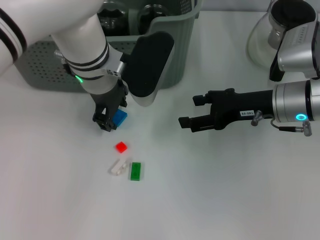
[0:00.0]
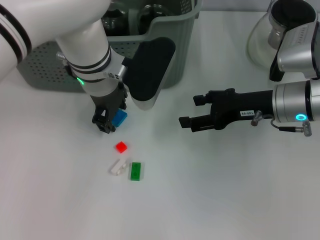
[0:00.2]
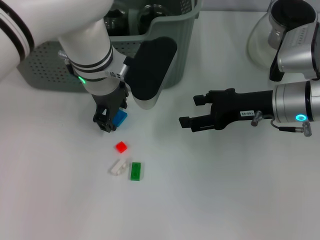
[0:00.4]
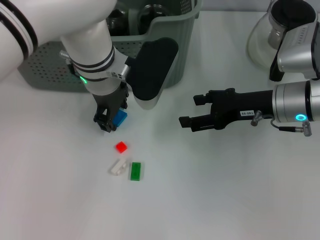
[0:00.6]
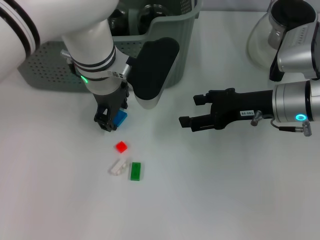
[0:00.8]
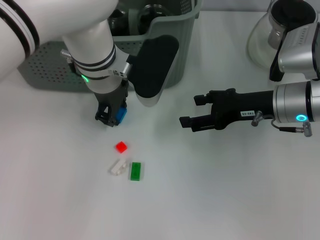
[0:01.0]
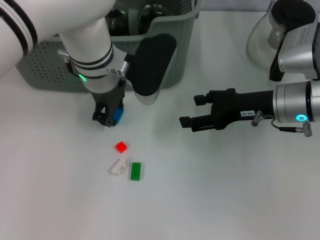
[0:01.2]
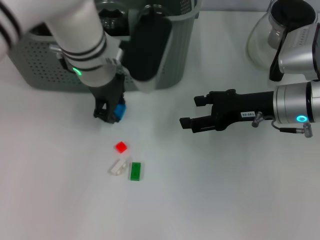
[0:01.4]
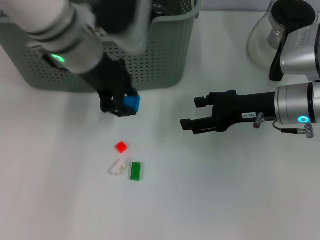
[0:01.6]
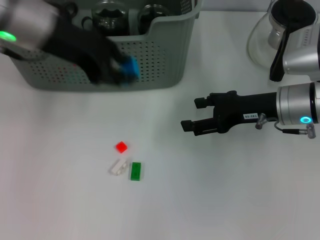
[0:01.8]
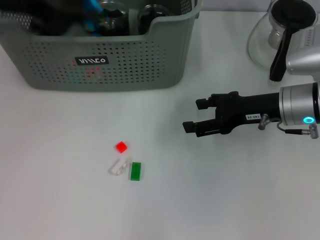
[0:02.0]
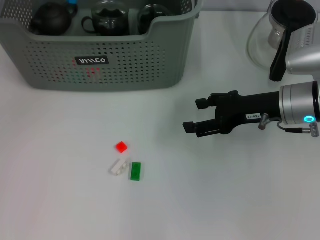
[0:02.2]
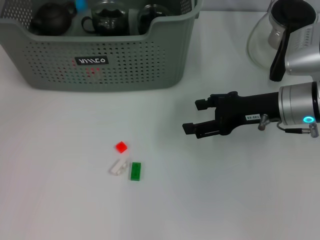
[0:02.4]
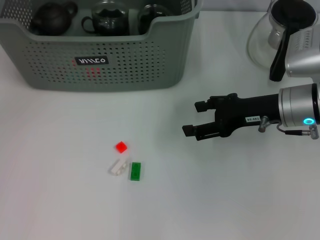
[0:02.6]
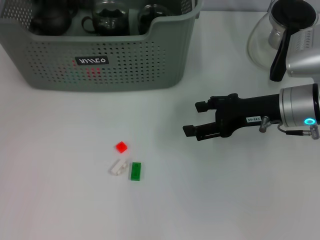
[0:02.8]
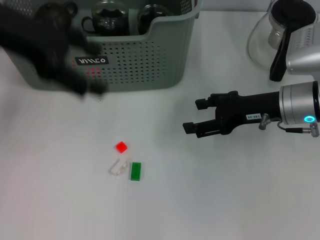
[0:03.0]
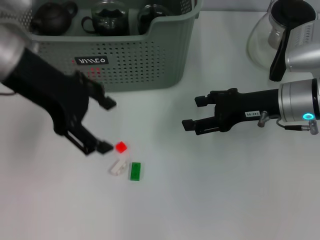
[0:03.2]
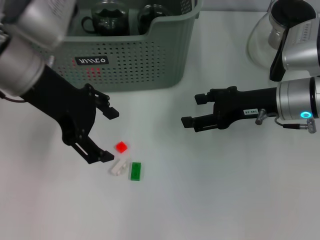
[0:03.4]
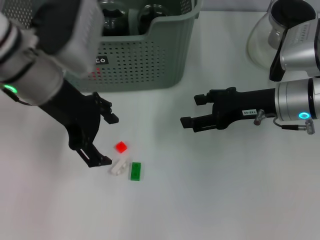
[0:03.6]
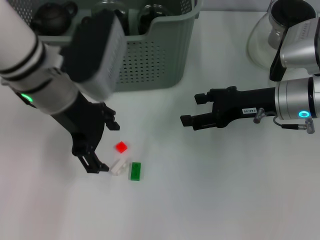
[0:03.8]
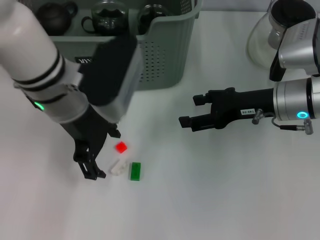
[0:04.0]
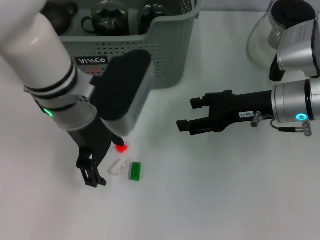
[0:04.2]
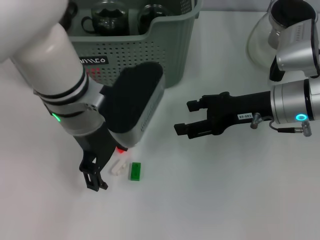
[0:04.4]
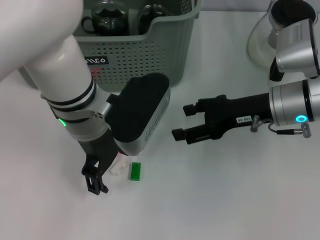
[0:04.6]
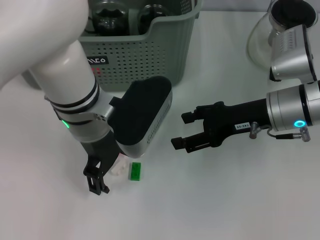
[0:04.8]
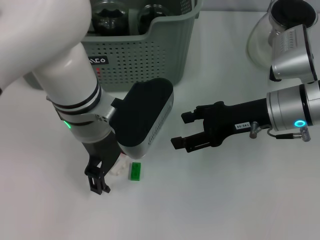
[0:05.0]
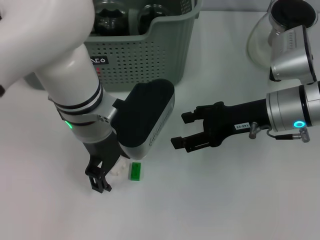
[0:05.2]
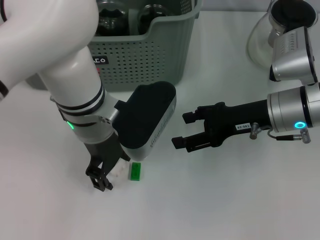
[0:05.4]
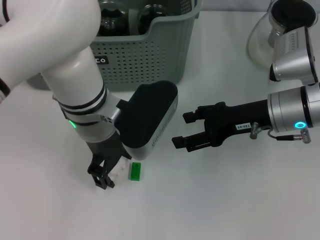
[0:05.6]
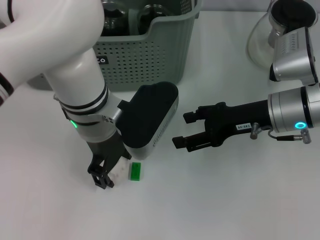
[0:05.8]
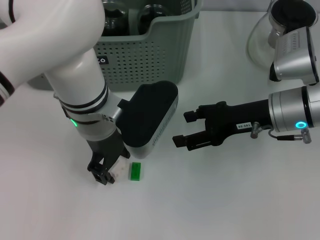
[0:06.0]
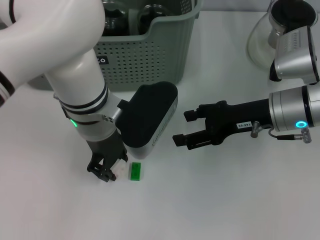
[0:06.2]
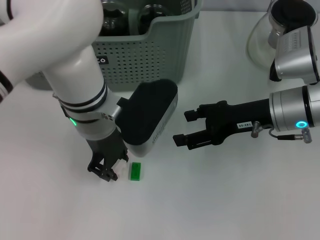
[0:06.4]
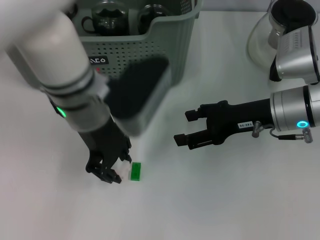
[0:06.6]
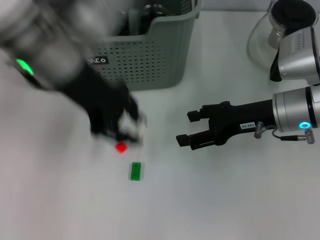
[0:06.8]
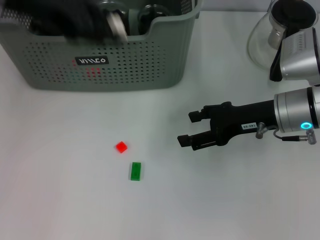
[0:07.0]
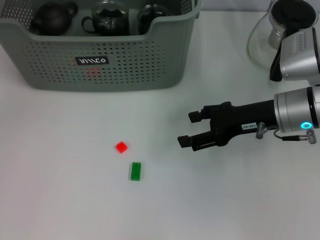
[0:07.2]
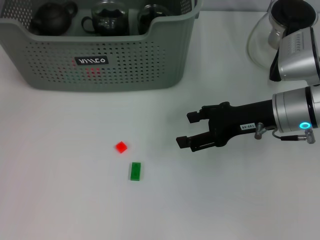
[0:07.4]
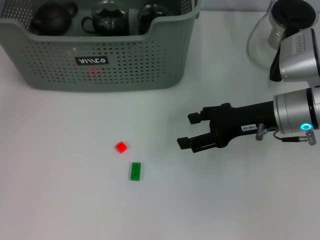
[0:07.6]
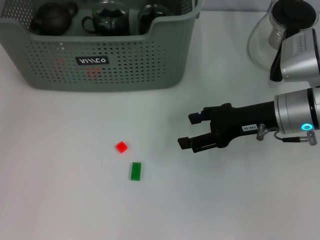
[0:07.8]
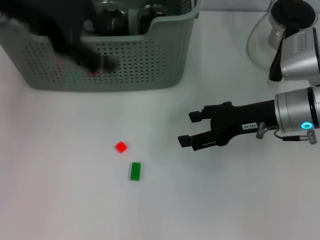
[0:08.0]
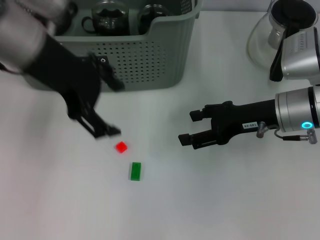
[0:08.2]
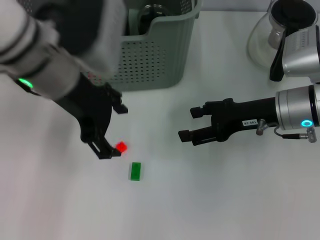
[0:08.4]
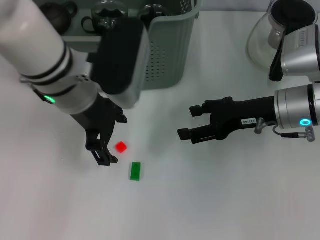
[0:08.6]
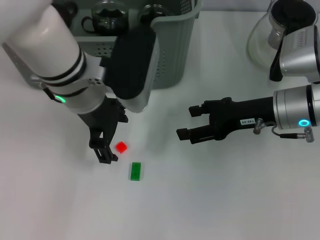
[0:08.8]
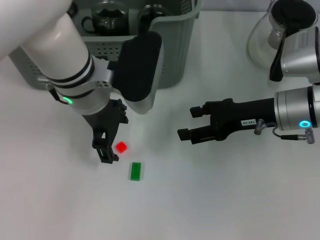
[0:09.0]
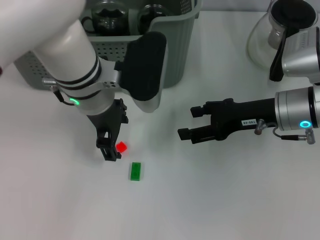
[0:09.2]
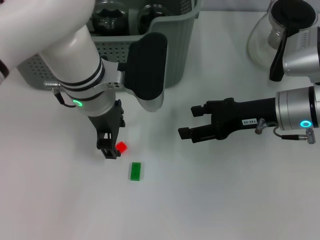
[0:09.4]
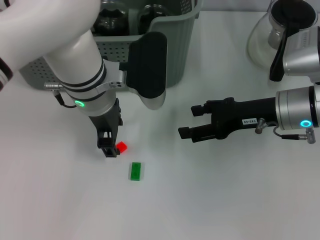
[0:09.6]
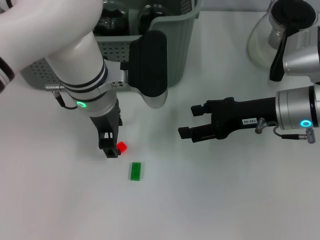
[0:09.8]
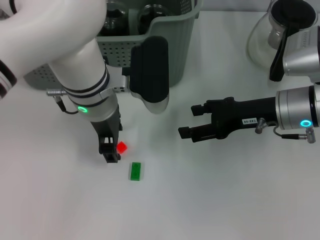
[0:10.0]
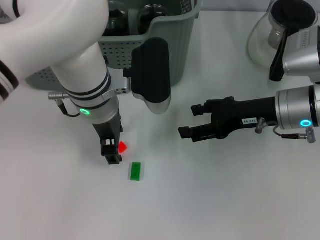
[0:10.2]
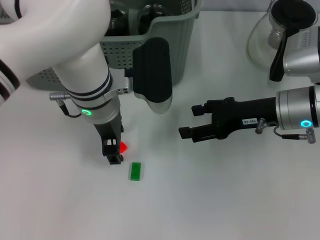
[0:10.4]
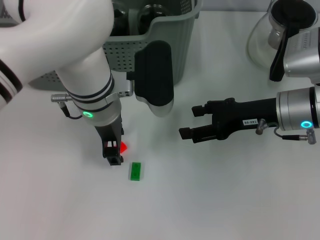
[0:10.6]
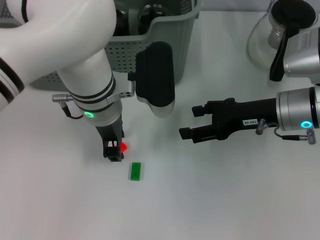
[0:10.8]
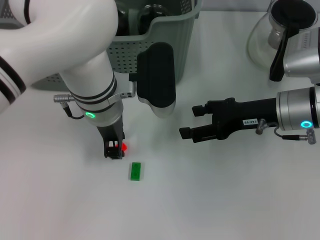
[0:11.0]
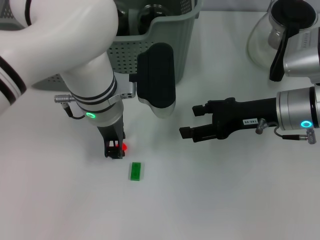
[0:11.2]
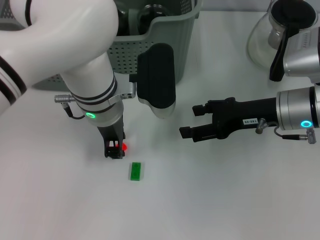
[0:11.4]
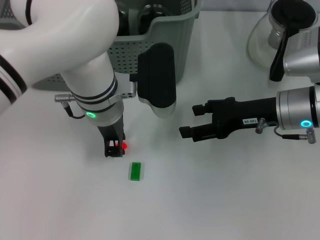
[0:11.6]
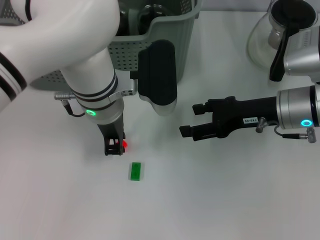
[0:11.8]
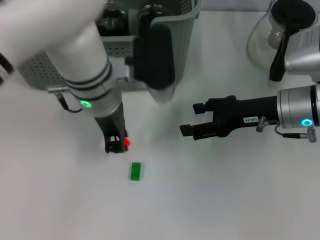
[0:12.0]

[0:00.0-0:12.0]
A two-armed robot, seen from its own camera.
Task of the whole recording: pick up the teacup on the table and place it into the storage bin, pick up the block on the table and place it into the storage bin.
Step, 0:01.4 to 0:02.6: Place the dark blue block in the storage box with left gripper.
Step, 0:02.8 to 0:06.2: Grasp the white block with left gripper.
Step, 0:06.6 to 0:07.6: Place the white block in the storage box with left gripper.
Step, 0:07.8 to 0:11.6: Grasp the orange block with left gripper.
0:00.0 to 0:01.6: The left gripper is displaced upward by about 5 cm.
0:01.6 to 0:03.0: The left gripper goes some 15 cm to the left and upward, and opens its fingers.
0:03.0 to 0:04.4: The left gripper goes about 15 cm to the right and downward.
0:06.0 to 0:07.6: The left gripper goes about 25 cm to the left, upward and forward.
0:07.6 to 0:09.0: The left gripper heads to the right, downward and backward, covering about 25 cm, and opens up.
0:09.0 to 0:10.4: The grippers stay close to where they were, moving slightly.
0:10.4 to 0:12.0: The left gripper closes.

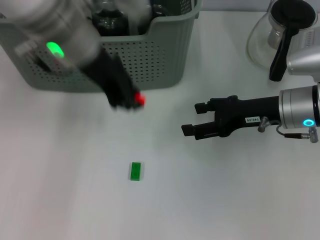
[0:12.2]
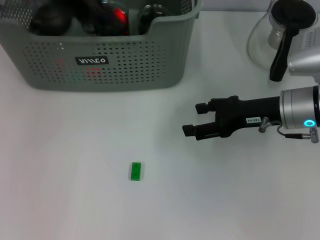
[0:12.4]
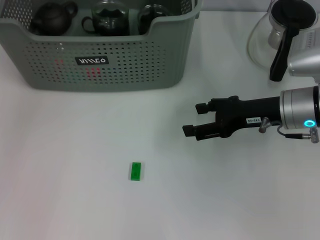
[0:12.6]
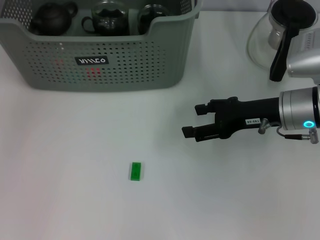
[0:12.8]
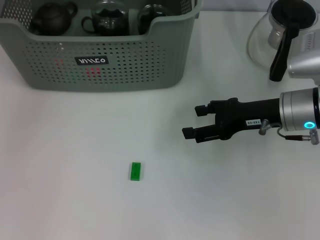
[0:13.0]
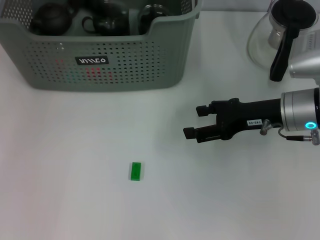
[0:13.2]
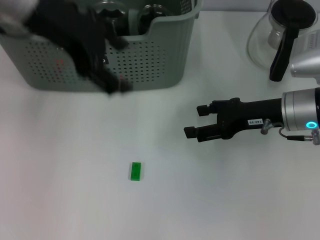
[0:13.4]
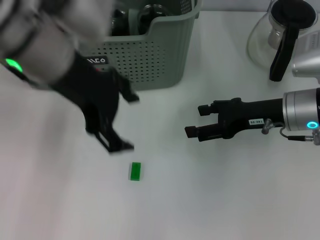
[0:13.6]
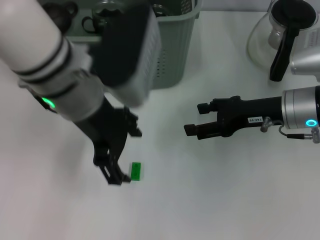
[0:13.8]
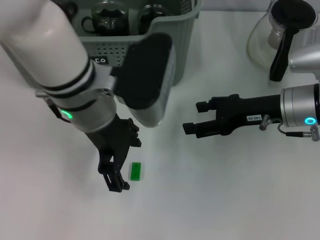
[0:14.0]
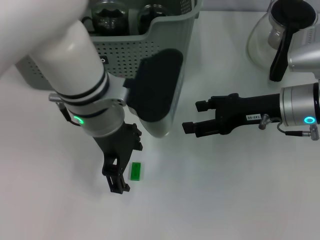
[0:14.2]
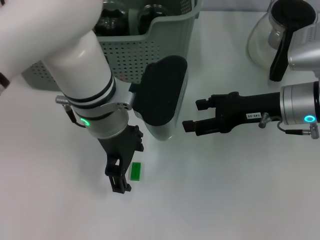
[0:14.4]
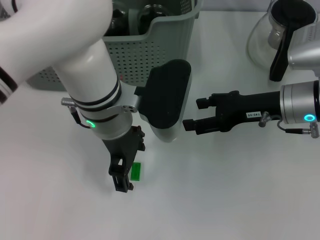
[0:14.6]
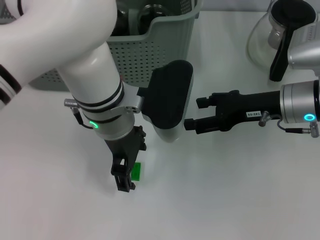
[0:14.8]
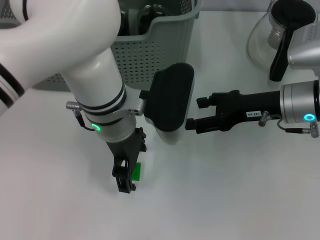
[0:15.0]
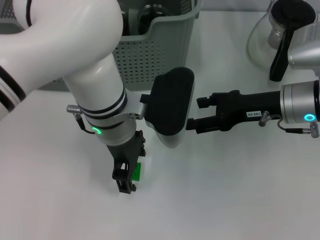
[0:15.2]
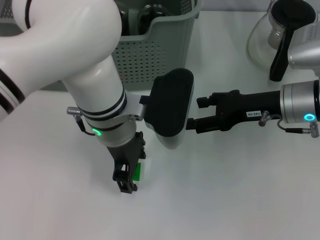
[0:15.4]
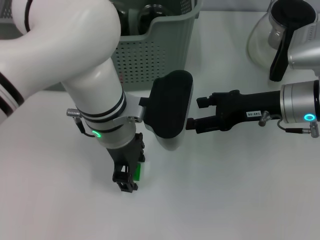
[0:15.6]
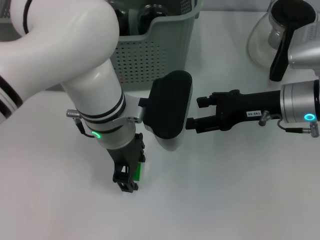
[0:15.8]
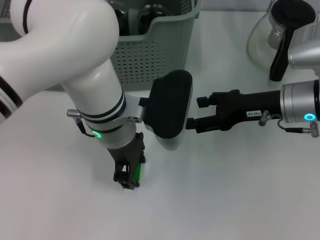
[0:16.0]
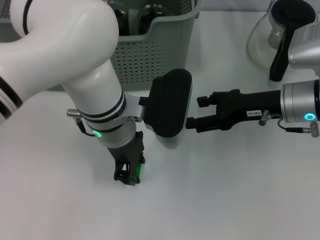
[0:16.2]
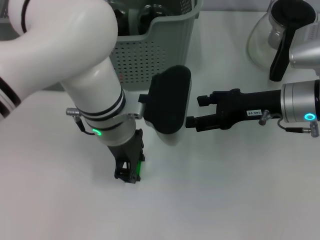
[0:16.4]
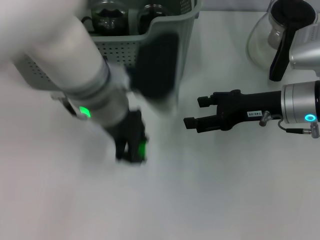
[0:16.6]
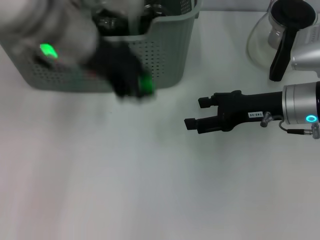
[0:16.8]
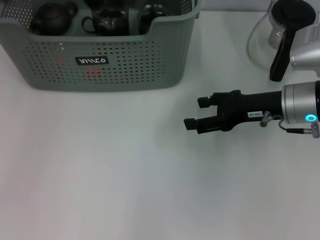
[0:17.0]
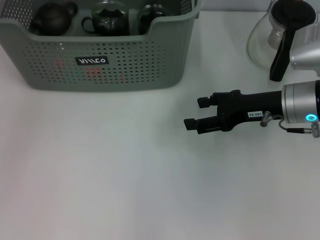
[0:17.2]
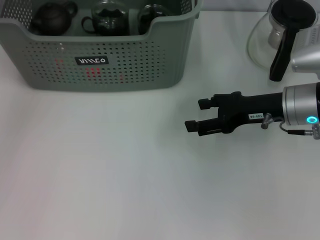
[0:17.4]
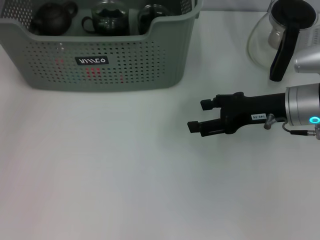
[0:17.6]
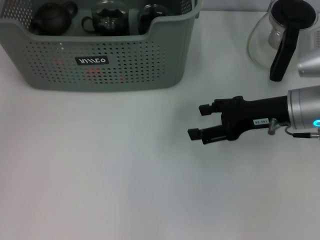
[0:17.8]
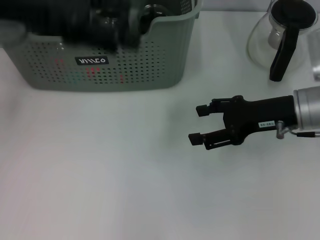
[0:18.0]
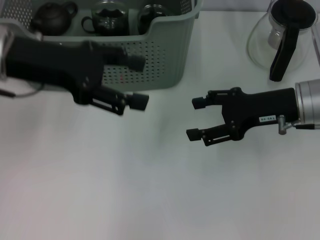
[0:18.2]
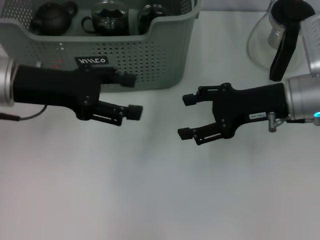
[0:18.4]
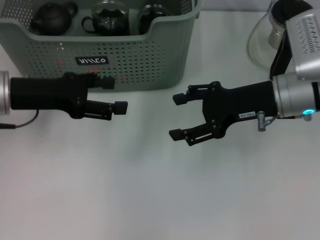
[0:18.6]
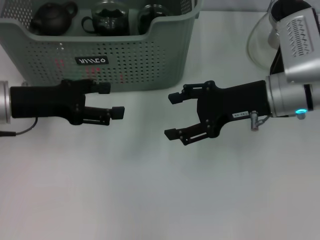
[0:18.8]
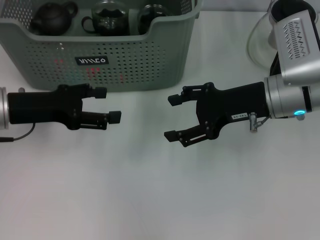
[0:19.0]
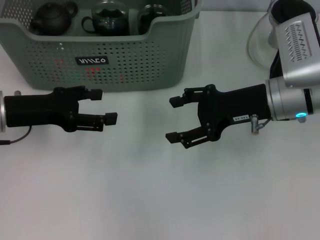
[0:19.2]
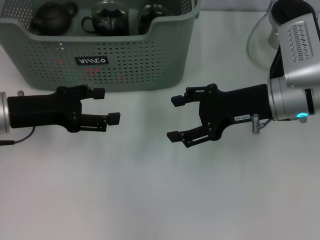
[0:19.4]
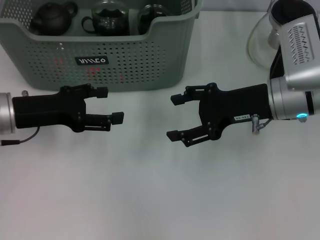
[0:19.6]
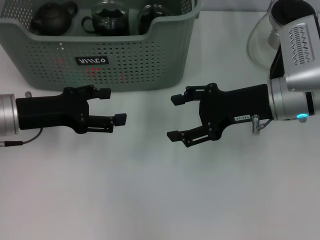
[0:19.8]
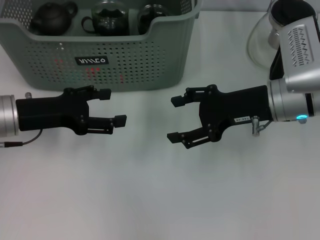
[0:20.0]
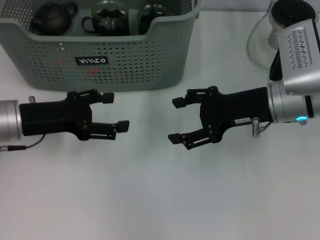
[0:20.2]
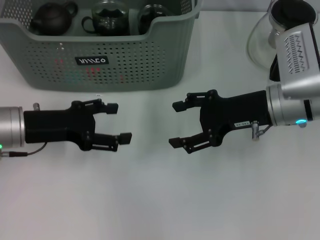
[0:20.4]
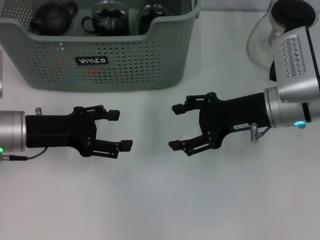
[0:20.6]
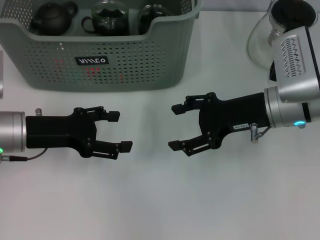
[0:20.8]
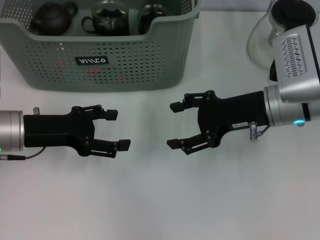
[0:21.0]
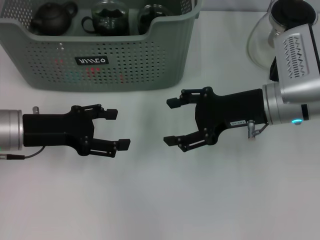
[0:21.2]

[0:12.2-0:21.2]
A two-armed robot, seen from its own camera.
Task of the whole recording: pick up the teacup on the table and place it into the storage bin, pick up the block on the table and place it into the storage bin.
Step, 0:12.2 to 0:13.0: Place the orange block in the storage box with left gripper.
Step, 0:13.4 to 0:16.2: Grasp the green block with left gripper.
0:12.2 to 0:13.8: The left gripper moves about 10 cm to the left and comes back, and opens.
0:13.8 to 0:15.2: The left gripper shifts some 10 cm downward.
0:15.2 to 0:16.6: The left gripper closes up.
0:16.6 to 0:18.2: The left gripper goes about 15 cm to the left, and opens up.
0:18.2 to 0:19.8: The left gripper is displaced downward by some 10 cm.
0:19.8 to 0:21.2: The grippers stay close to where they were, moving slightly.
